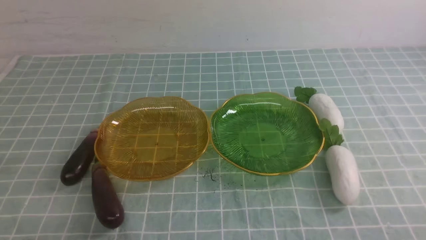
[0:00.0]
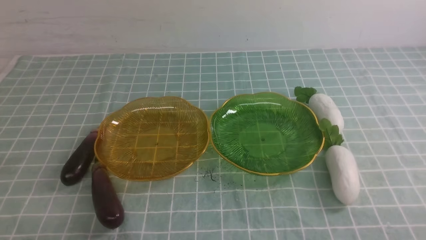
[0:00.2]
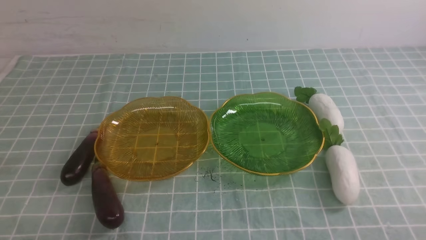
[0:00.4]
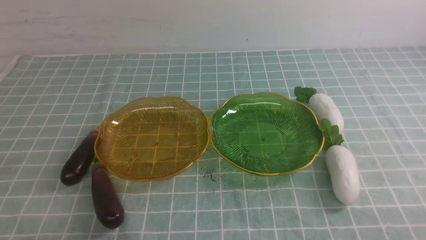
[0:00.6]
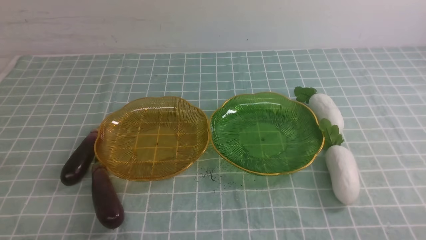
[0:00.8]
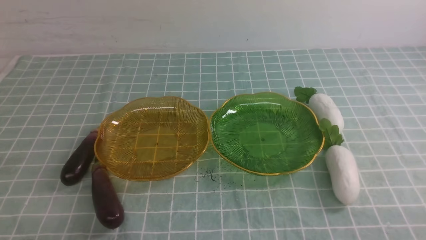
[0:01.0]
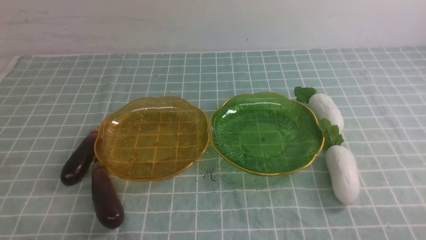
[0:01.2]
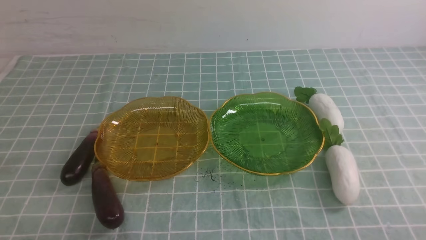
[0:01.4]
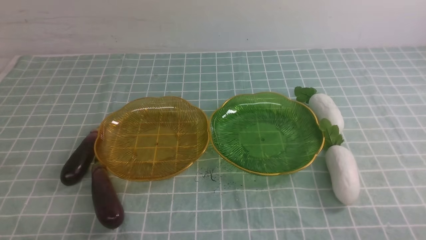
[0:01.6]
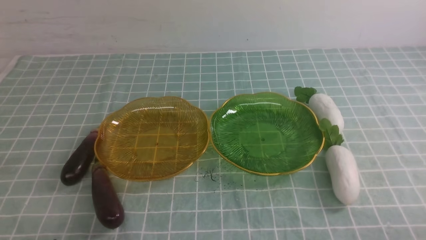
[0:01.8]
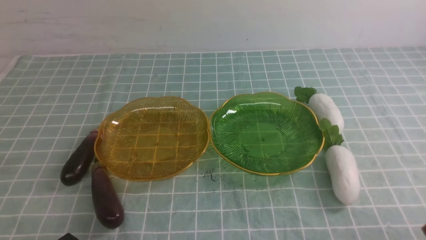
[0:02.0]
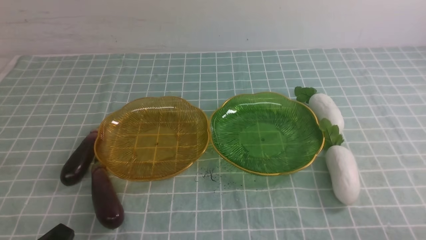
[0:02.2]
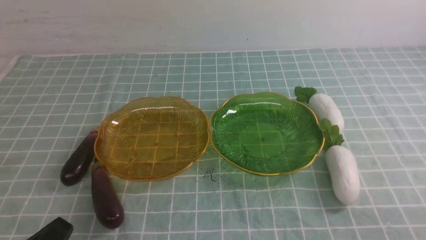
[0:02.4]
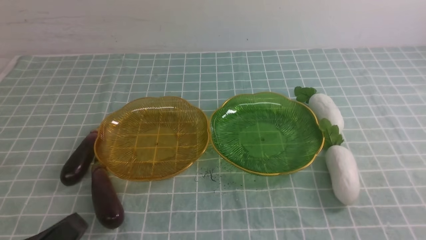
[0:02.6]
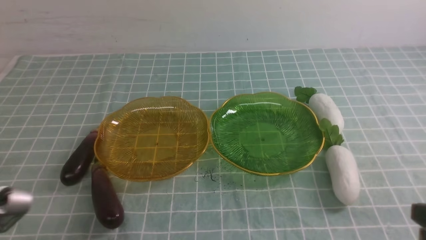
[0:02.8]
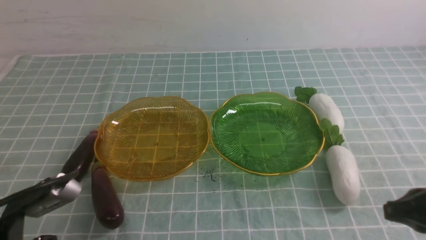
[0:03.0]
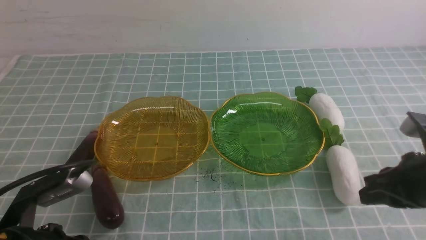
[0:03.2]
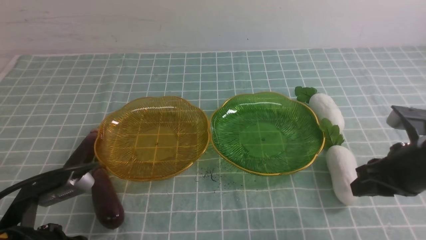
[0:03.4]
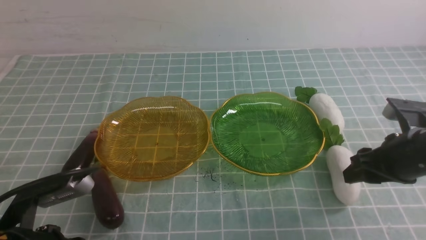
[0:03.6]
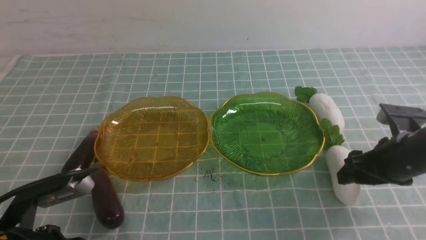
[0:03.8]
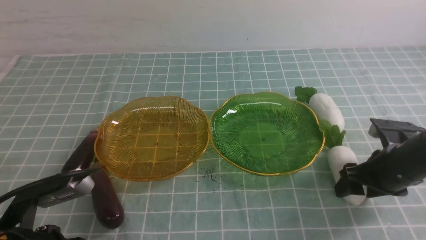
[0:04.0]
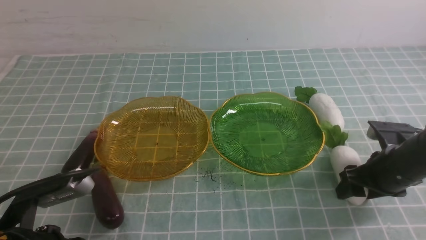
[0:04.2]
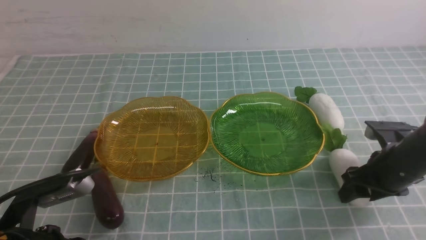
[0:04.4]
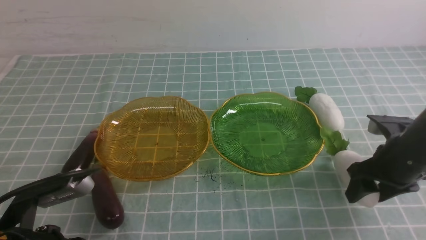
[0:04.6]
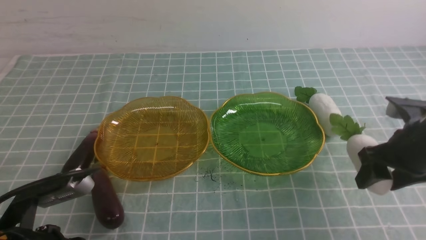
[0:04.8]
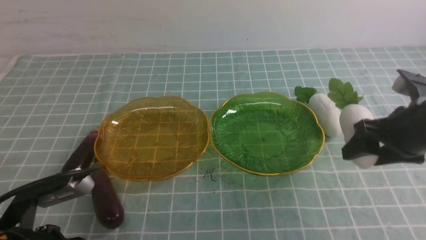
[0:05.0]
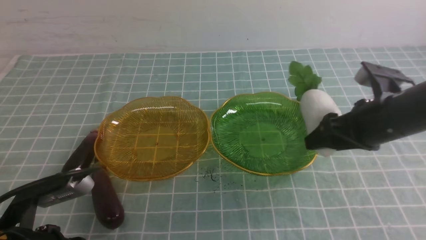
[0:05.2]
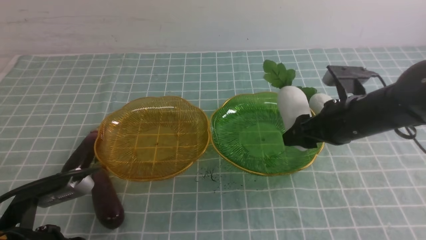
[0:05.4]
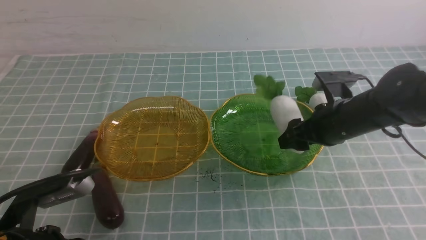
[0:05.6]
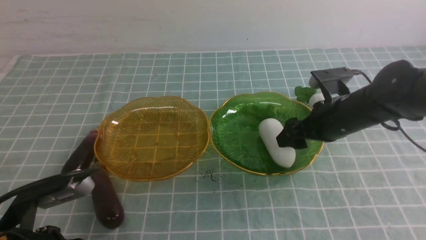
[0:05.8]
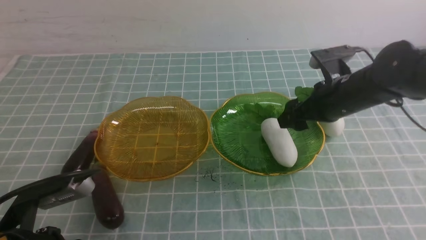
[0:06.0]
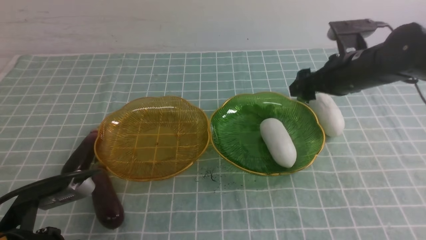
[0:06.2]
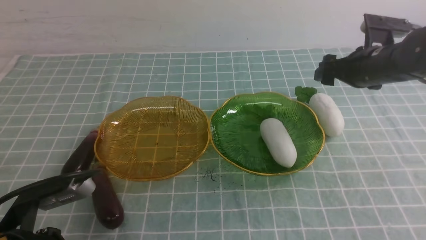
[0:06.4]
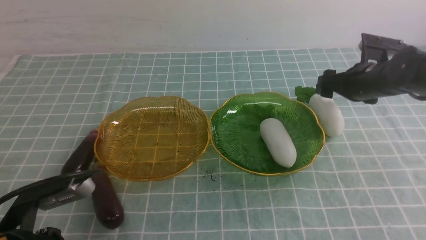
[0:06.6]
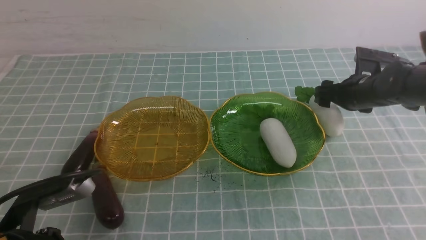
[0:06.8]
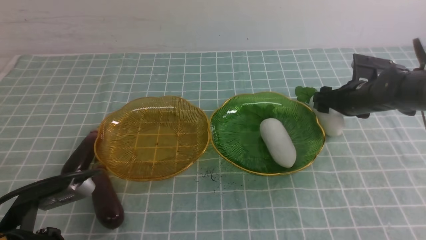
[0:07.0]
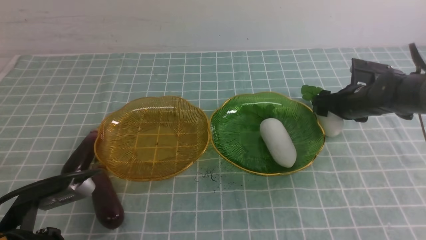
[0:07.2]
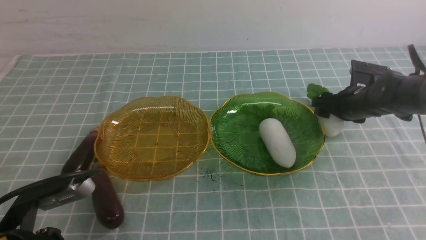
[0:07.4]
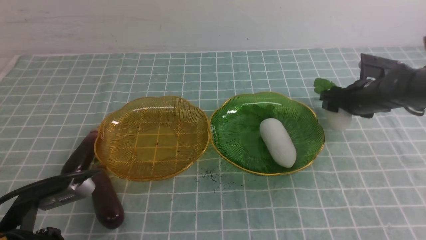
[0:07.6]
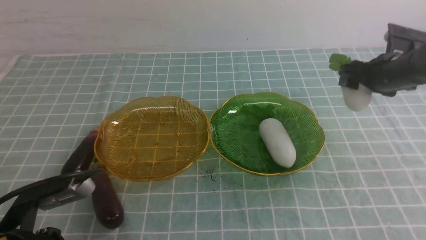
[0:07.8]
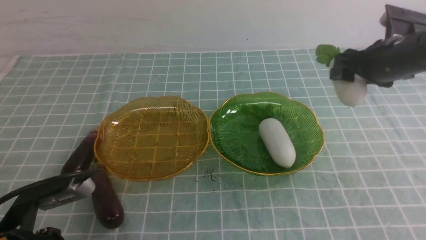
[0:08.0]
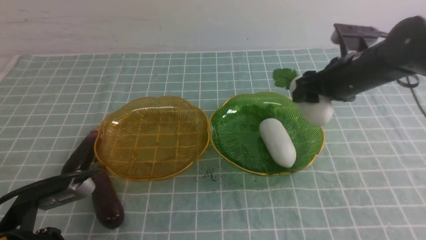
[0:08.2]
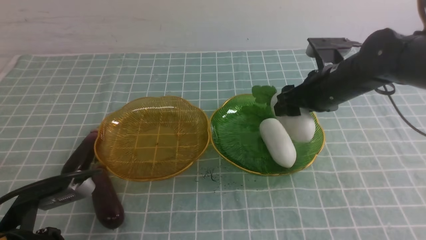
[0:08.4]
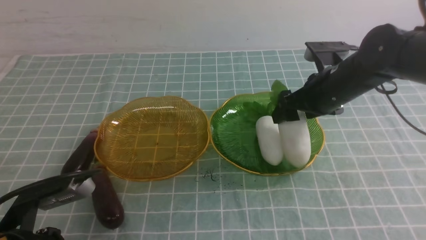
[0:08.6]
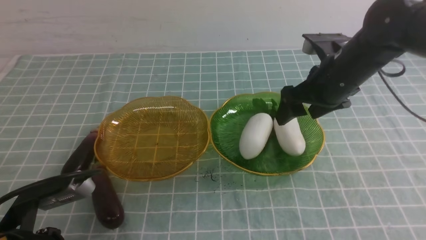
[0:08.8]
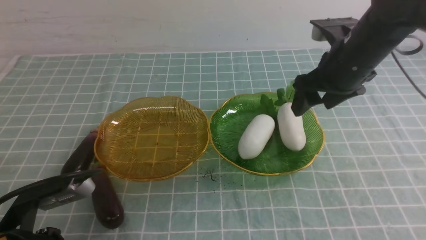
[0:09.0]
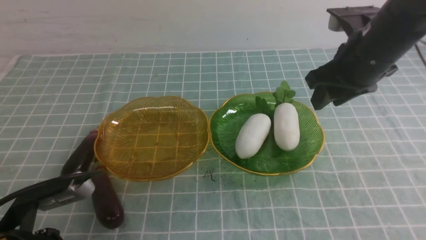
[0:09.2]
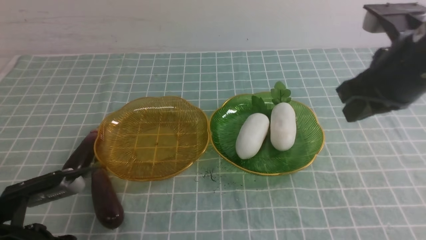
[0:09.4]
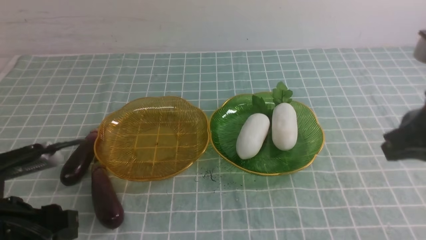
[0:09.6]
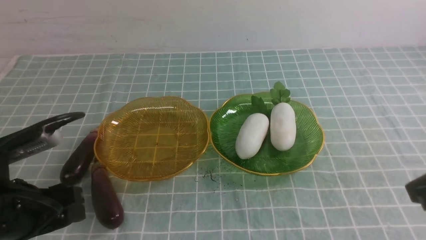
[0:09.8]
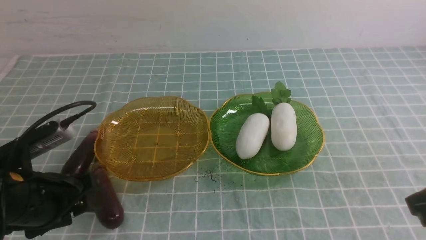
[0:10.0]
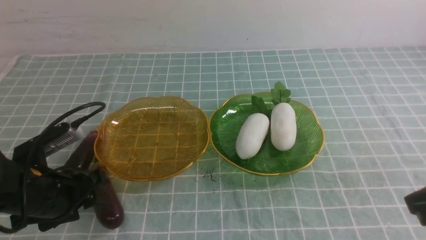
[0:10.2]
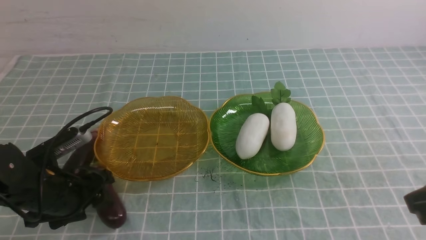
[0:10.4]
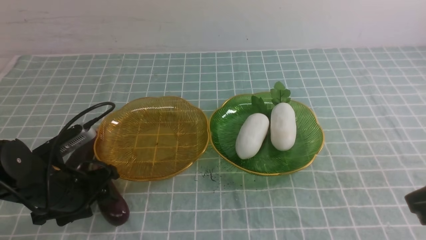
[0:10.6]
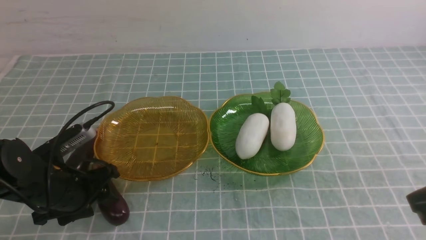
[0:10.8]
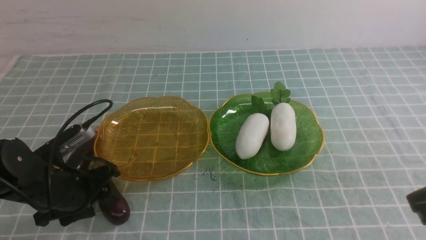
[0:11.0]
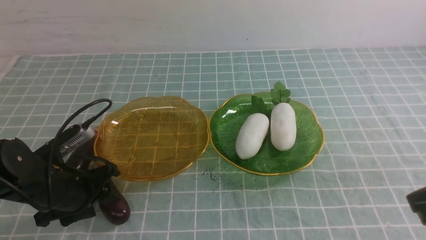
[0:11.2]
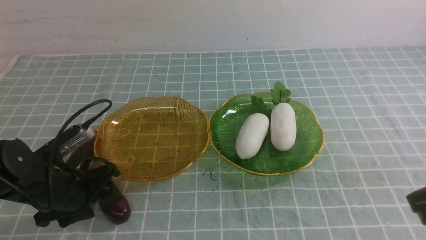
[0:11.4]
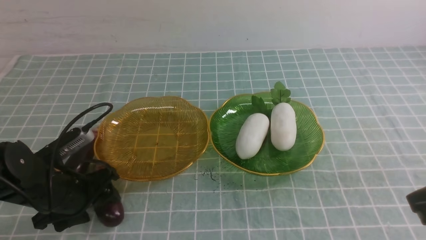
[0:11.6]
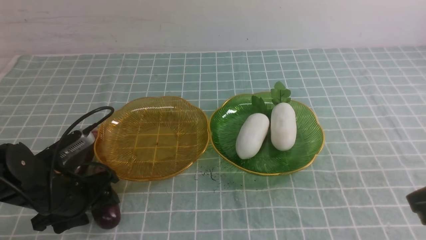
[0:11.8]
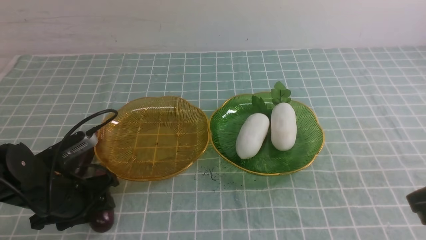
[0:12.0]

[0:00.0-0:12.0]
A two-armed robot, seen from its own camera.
Step, 0:00.0 to 0:08.6: use the right arm to grab a radish and put it into the right plate.
0:01.6 to 0:03.0: The left gripper heads upward and forward, covering some 10 cm, while the right gripper travels forward and upward by about 15 cm.
0:03.0 to 0:04.4: The right gripper shifts about 15 cm forward and downward, and opens up.
0:04.4 to 0:06.0: The right gripper goes approximately 15 cm forward, to the left and upward.
0:06.0 to 0:07.6: The right gripper shifts about 10 cm to the right, forward and downward.
0:07.6 to 0:09.0: The right gripper travels upward, to the left and backward by some 15 cm.
0:09.0 to 0:10.4: The left gripper heads forward, covering some 10 cm, and opens; the right gripper shifts some 20 cm backward, and closes up.
0:10.4 to 0:12.0: There are only small adjustments of the grippers.

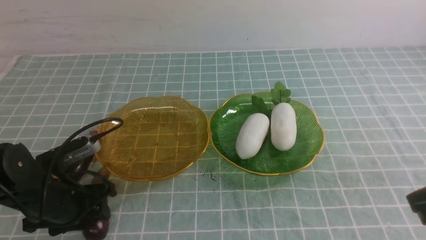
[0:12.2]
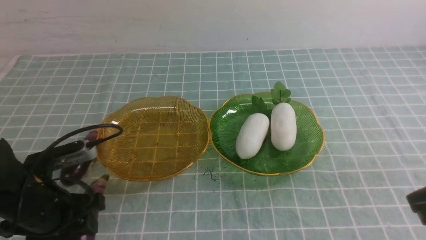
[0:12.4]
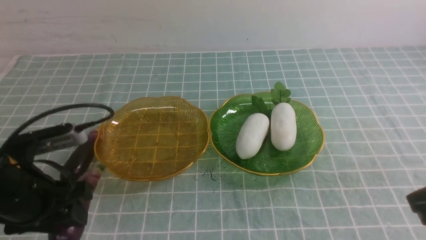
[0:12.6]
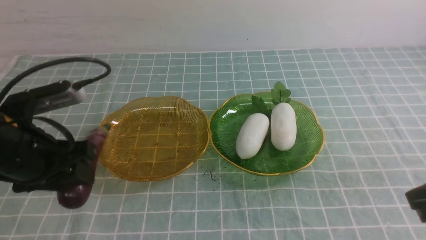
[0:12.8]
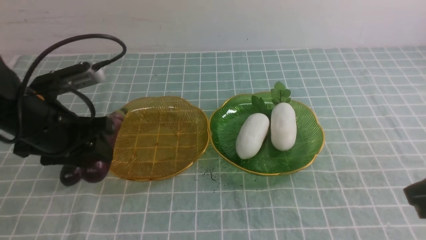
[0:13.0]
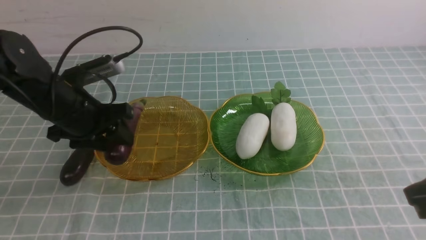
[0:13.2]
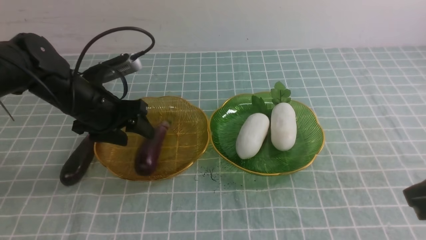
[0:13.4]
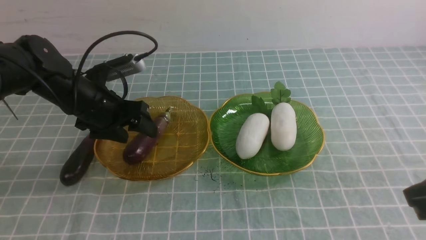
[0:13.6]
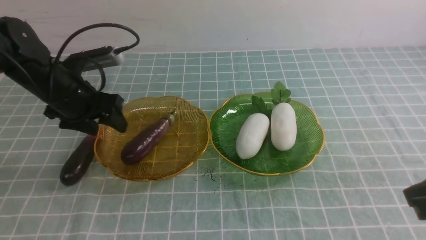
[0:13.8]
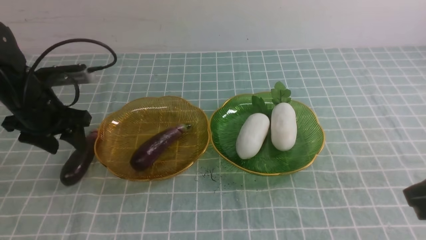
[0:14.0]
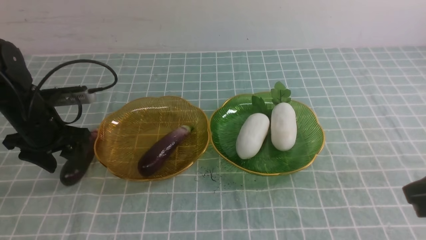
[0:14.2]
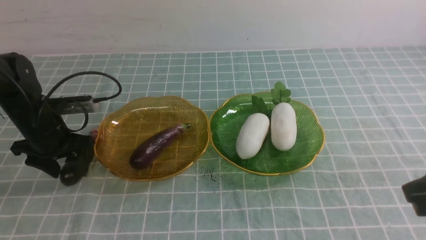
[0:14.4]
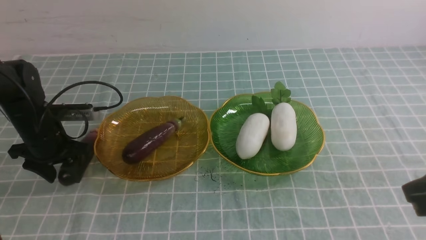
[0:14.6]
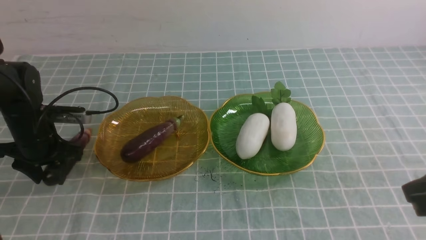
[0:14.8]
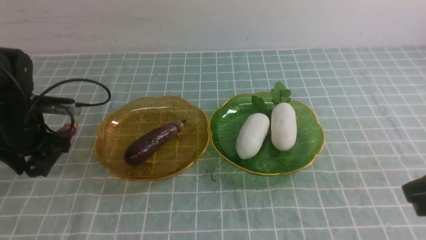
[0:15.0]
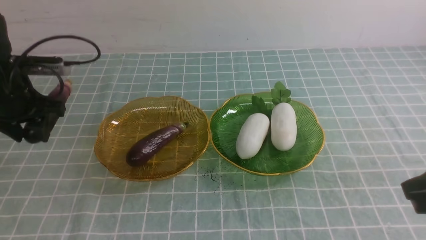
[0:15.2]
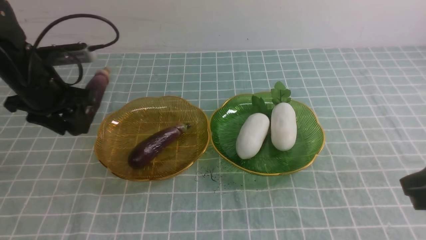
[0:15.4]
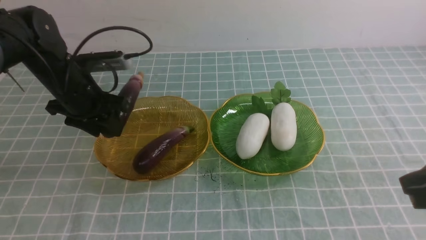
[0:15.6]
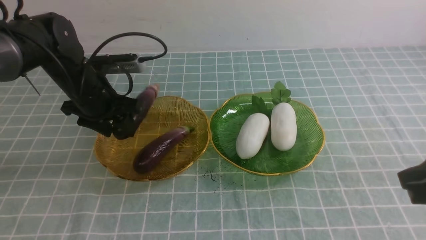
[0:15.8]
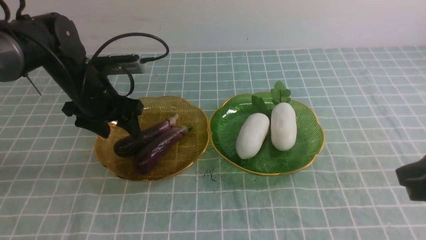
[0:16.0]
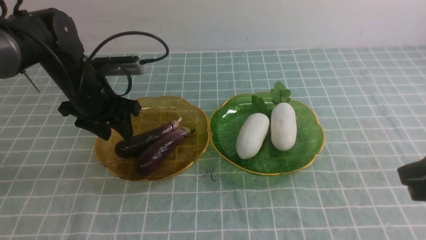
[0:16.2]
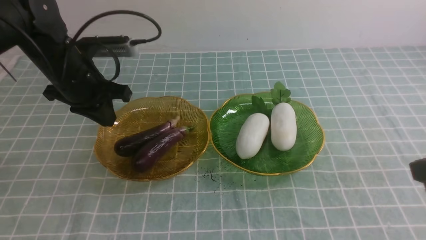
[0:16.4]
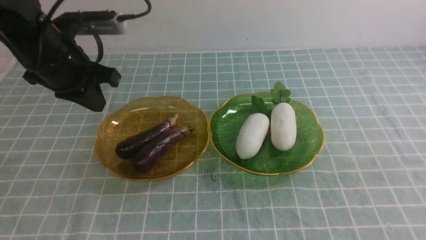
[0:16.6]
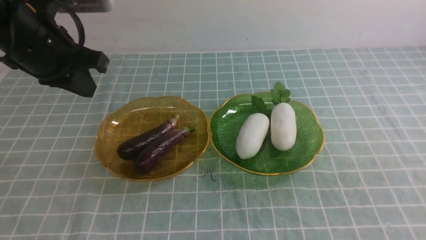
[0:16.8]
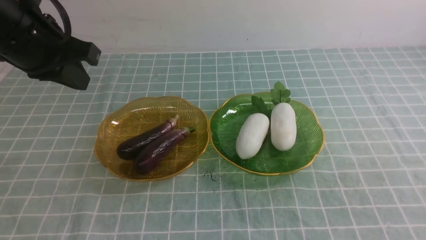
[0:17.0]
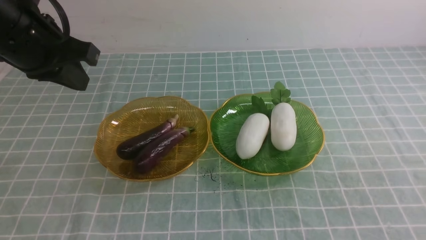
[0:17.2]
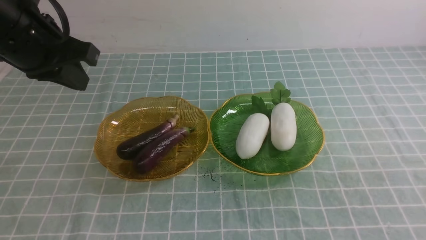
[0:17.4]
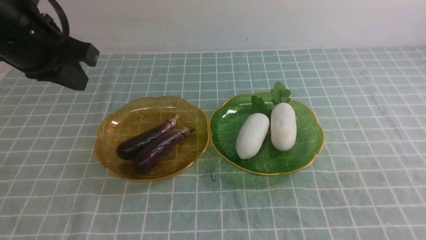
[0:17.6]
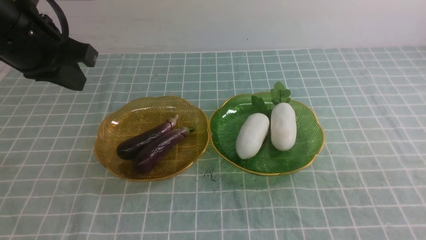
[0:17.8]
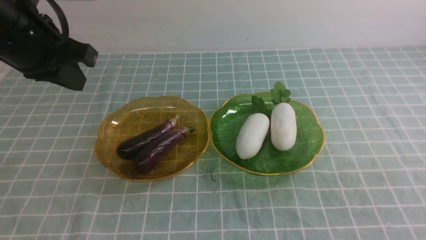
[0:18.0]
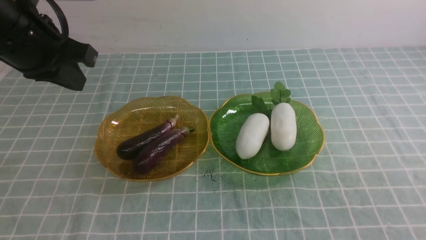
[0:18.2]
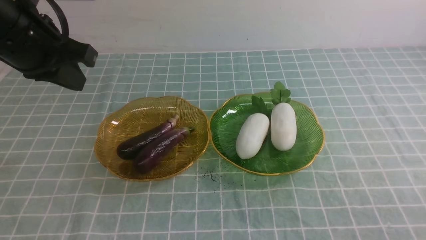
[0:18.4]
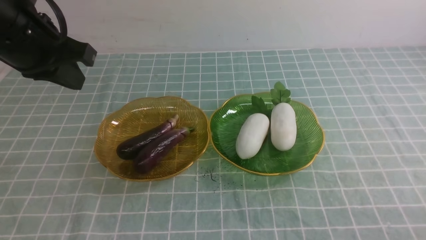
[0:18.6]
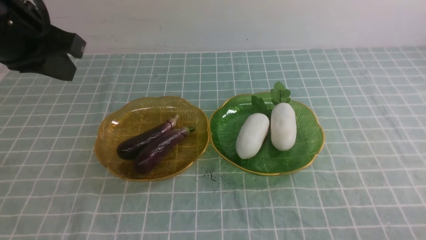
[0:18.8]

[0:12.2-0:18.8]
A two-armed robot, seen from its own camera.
Step, 0:12.2 to 0:16.4: use the left arm to grab an eggplant and put it into the left plate.
0:12.2 to 0:13.8: The left gripper goes roughly 15 cm forward and upward.
0:13.8 to 0:15.4: The left gripper reaches roughly 5 cm downward, then returns.
0:15.4 to 0:17.2: The left gripper is displaced upward and backward by about 15 cm, and closes up. The right gripper travels backward by about 5 cm.
